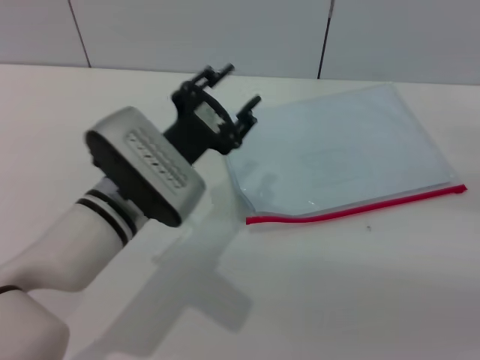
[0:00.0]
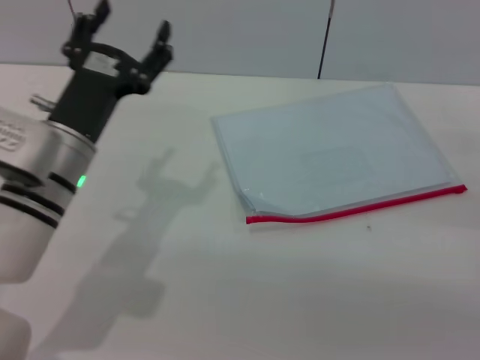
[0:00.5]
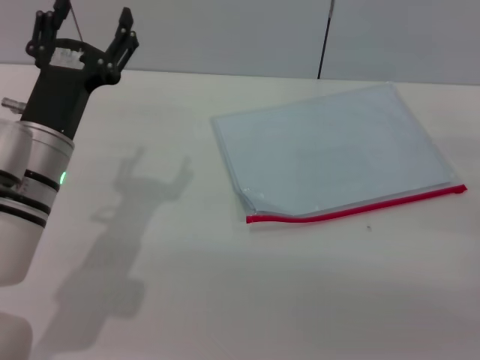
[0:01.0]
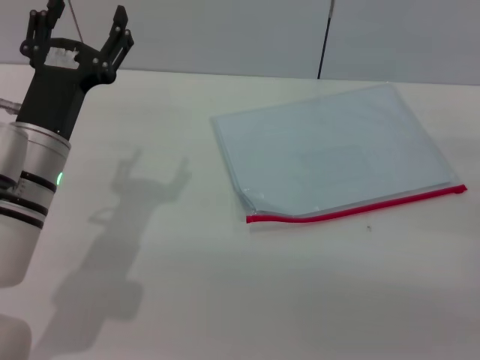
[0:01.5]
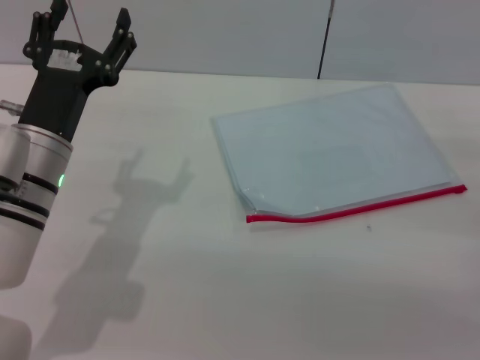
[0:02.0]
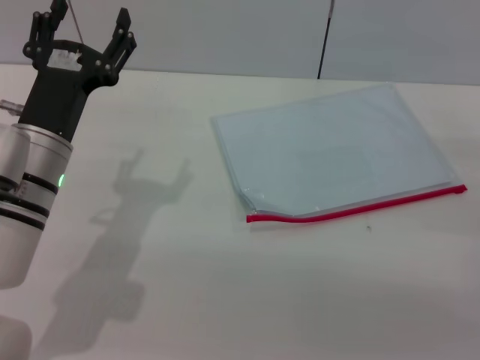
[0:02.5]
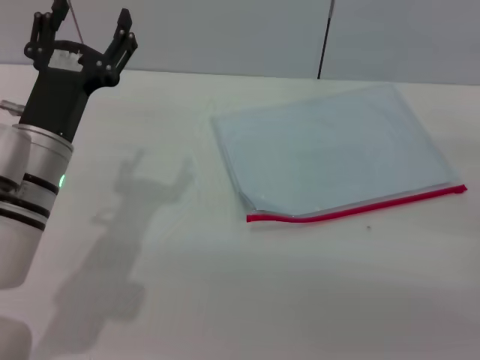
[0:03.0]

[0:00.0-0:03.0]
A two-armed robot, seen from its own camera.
0:00.0 to 0:01.5: The left gripper shifts some 10 cm to the left, and opens up.
0:01.5 to 0:03.0: Neither gripper changes place.
